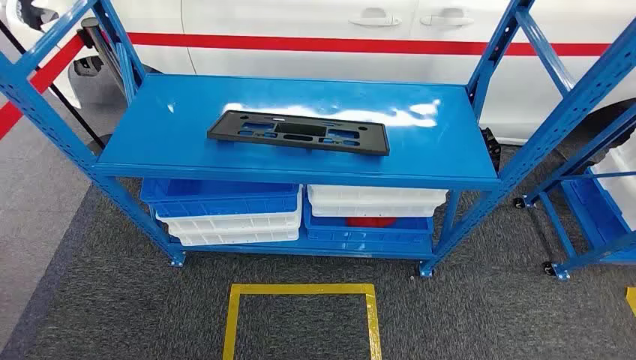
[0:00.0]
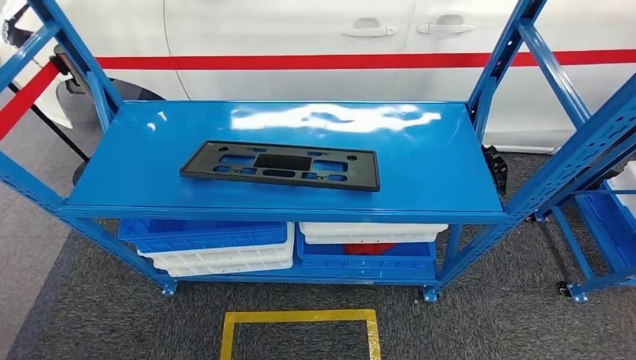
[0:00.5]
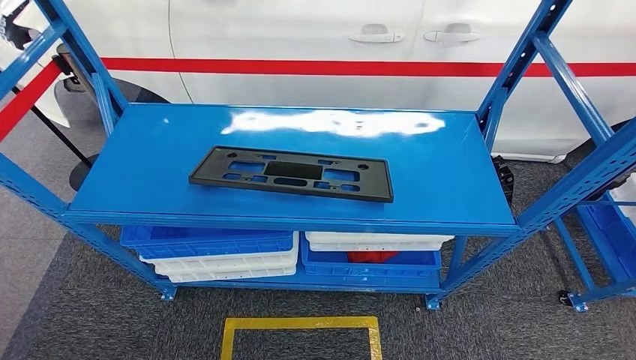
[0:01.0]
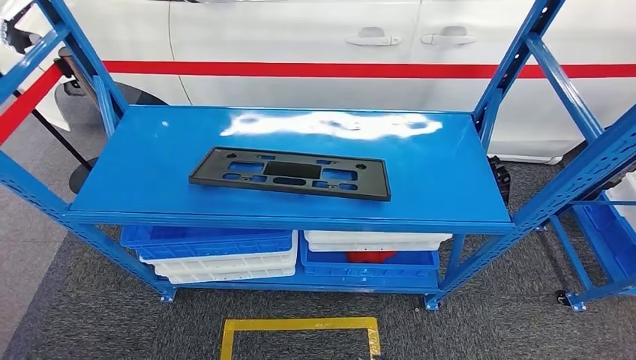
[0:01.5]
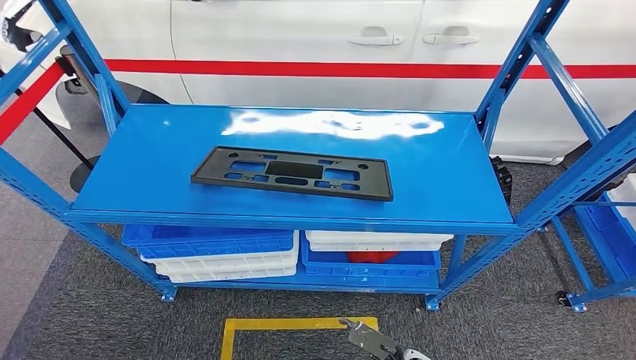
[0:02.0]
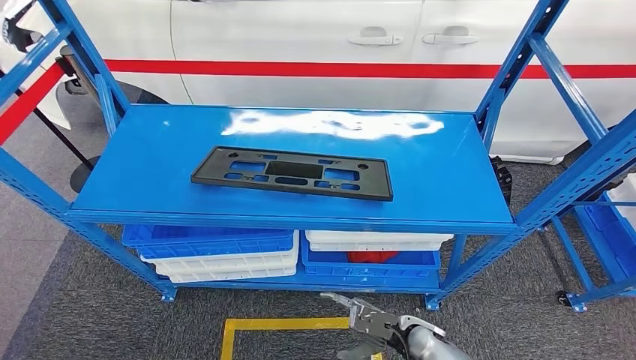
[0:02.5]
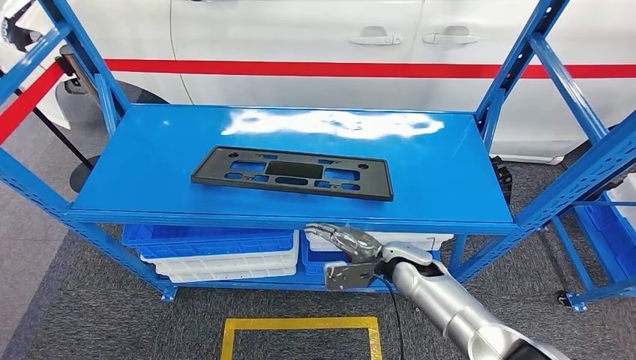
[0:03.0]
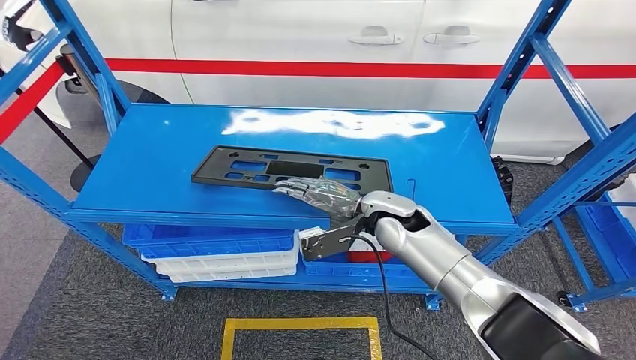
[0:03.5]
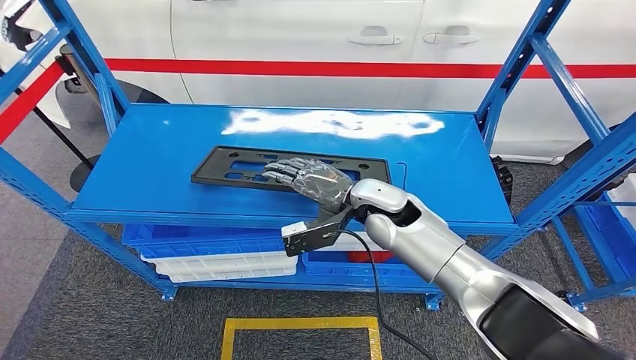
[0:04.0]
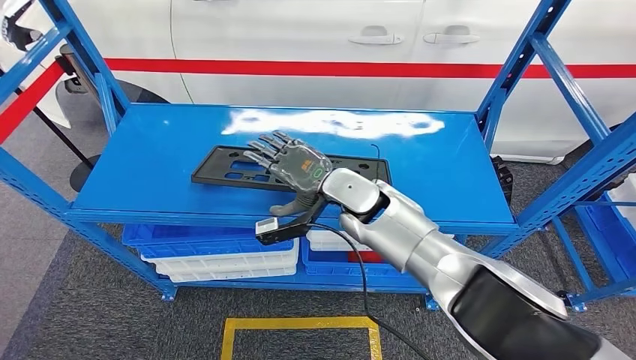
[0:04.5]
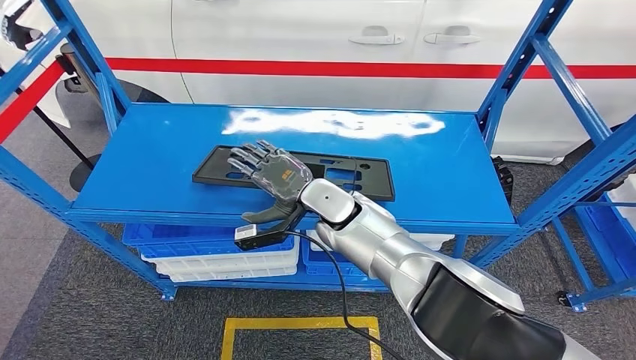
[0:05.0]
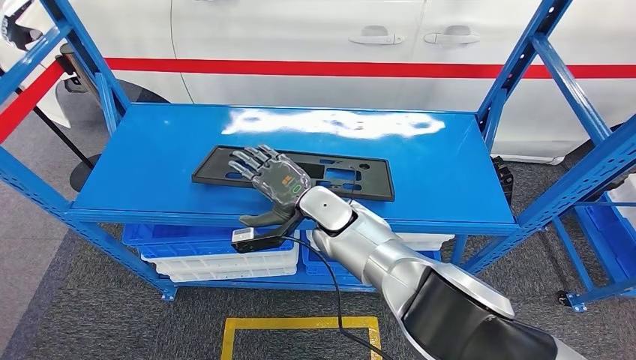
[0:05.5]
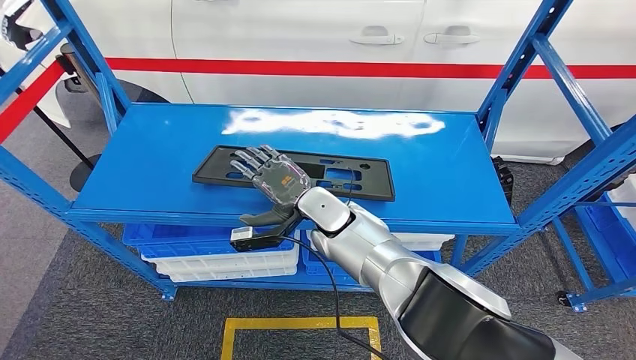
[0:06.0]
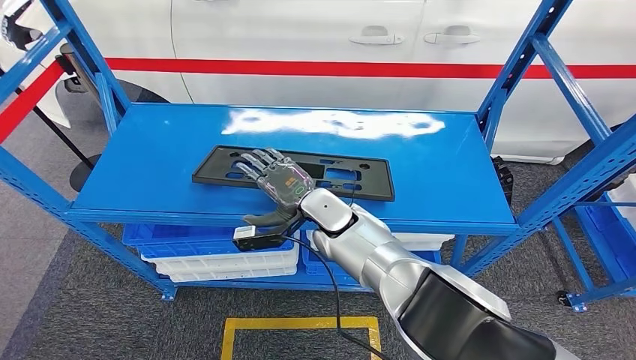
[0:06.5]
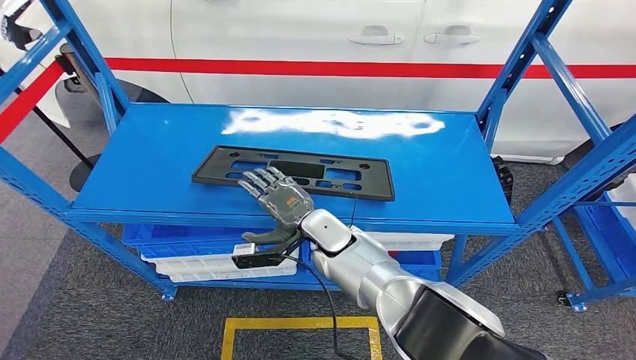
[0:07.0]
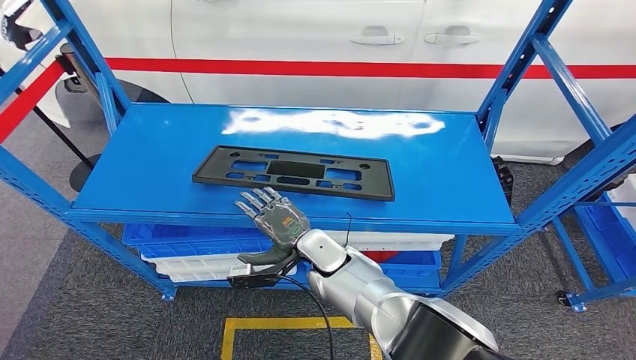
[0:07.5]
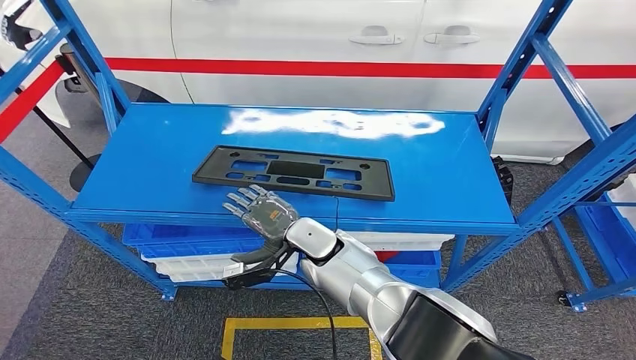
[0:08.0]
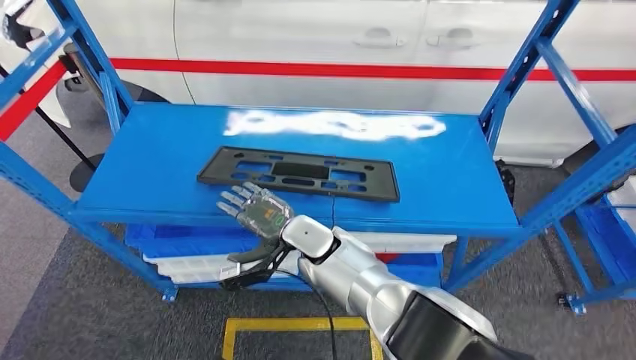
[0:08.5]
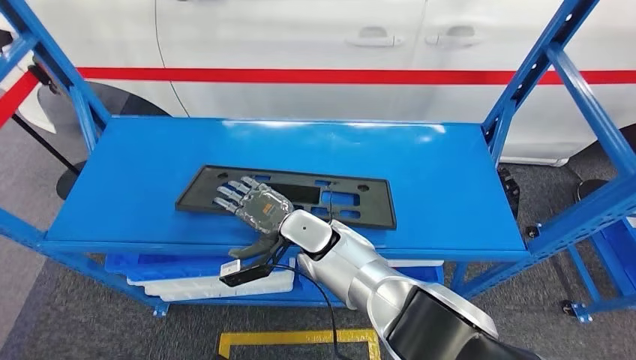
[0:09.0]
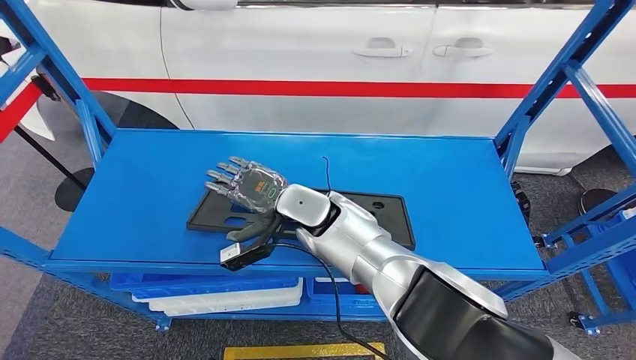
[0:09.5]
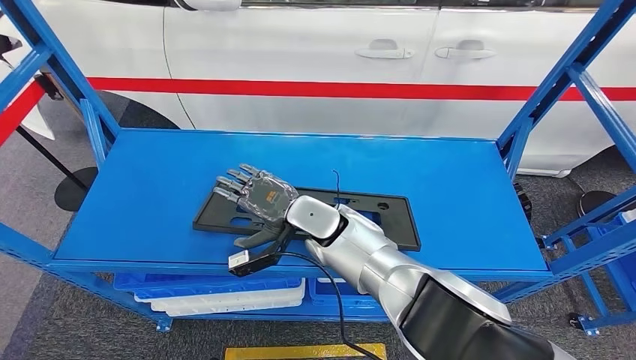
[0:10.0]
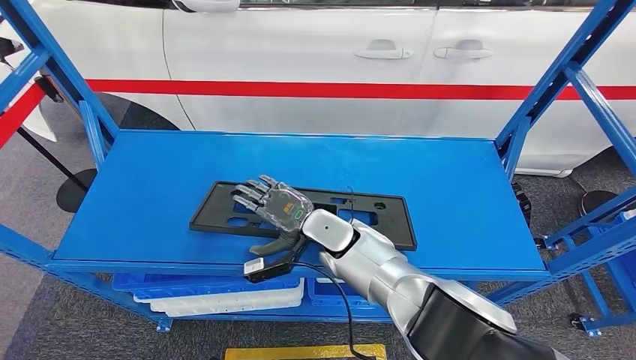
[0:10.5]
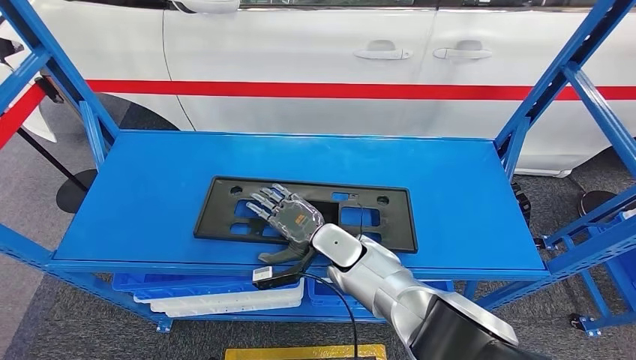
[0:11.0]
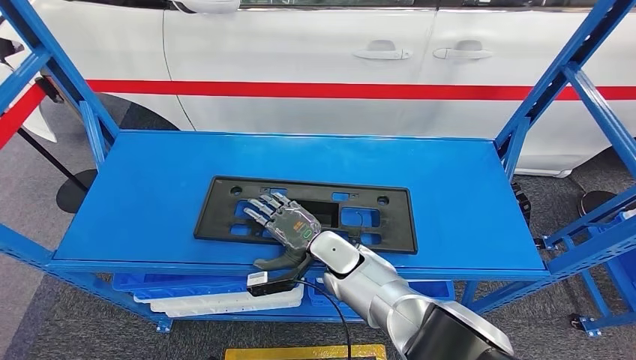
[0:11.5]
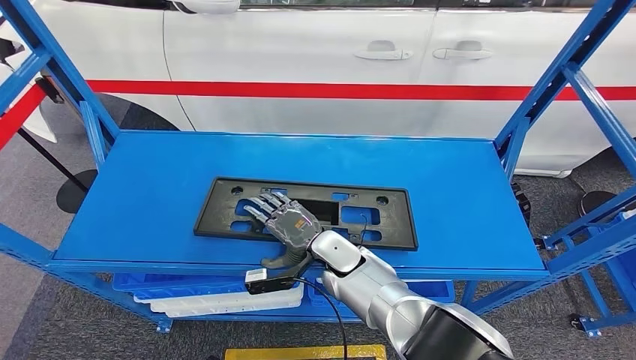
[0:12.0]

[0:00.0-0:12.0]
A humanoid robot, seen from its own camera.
0:02.0 to 0:04.0: The right hand is displaced upward and forward by roughly 35 cm.
0:04.0 to 0:06.0: The right hand goes roughly 10 cm to the left.
0:06.0 to 0:08.0: The right hand shifts by about 5 cm.
0:10.0 to 0:12.0: The right hand shifts about 10 cm downward.

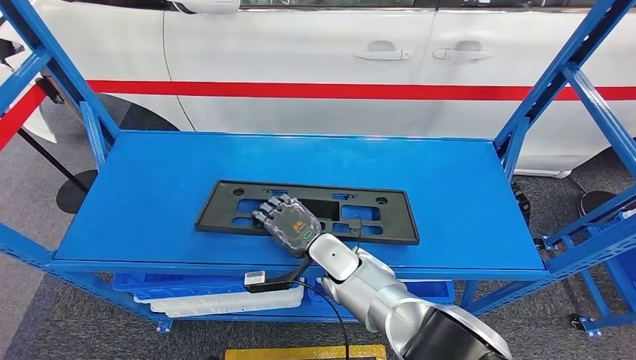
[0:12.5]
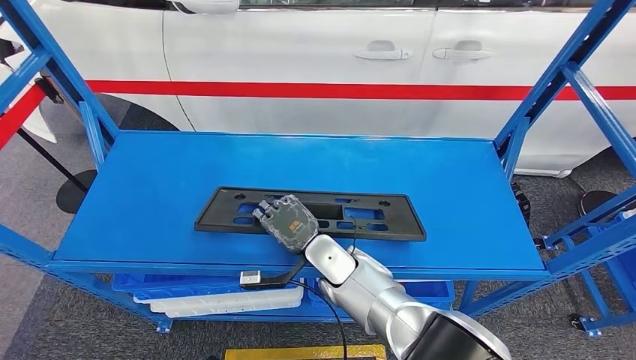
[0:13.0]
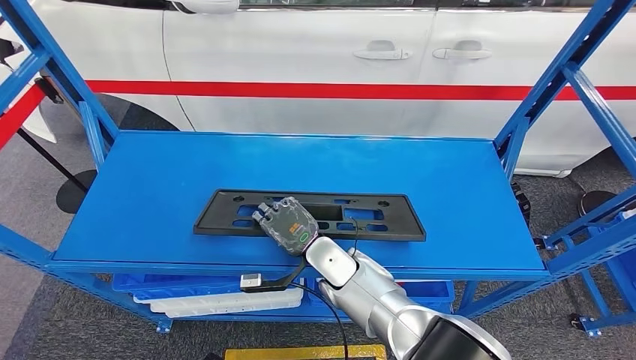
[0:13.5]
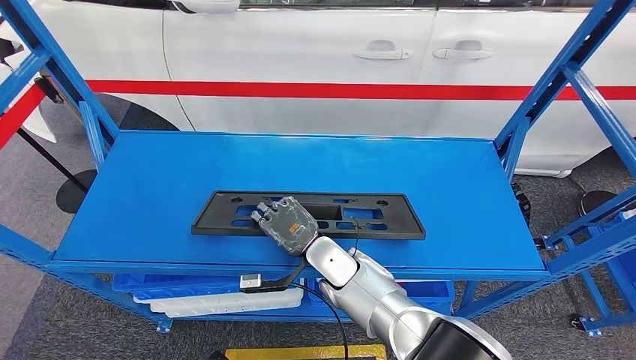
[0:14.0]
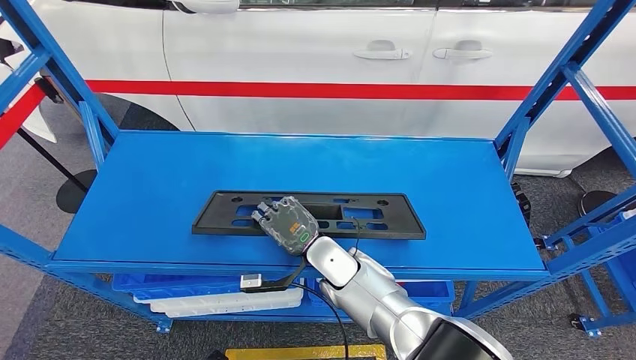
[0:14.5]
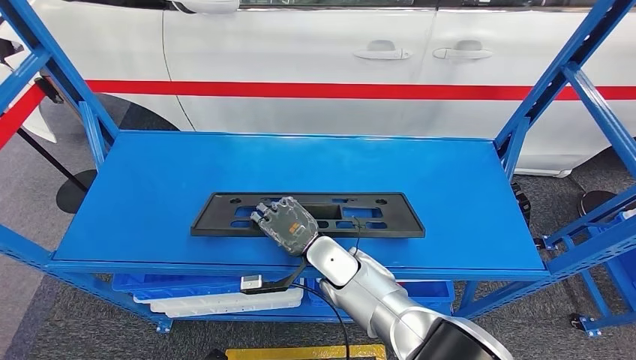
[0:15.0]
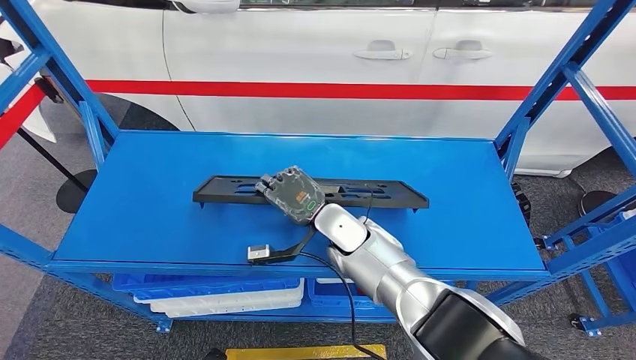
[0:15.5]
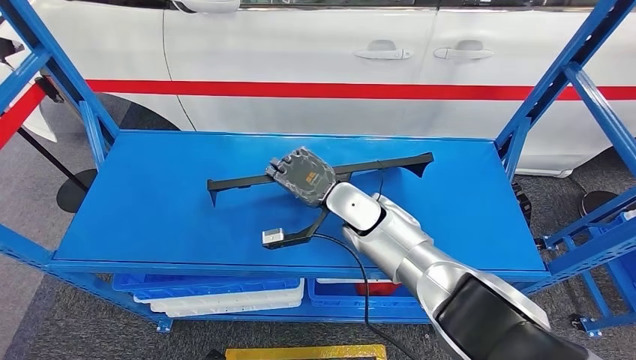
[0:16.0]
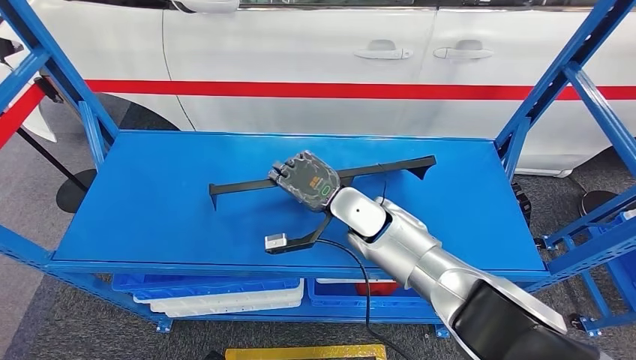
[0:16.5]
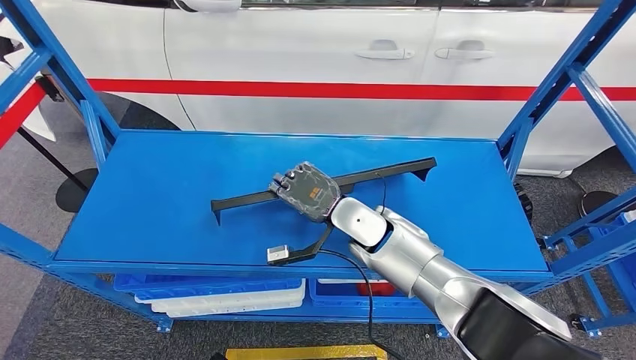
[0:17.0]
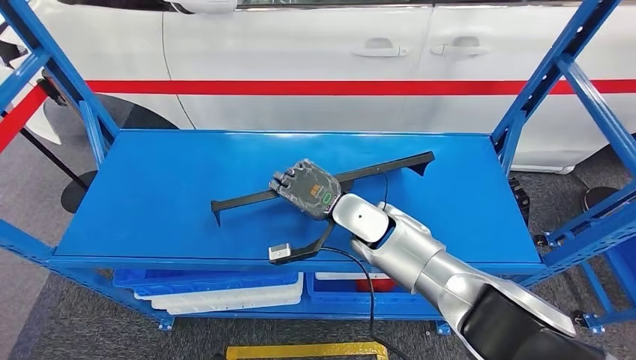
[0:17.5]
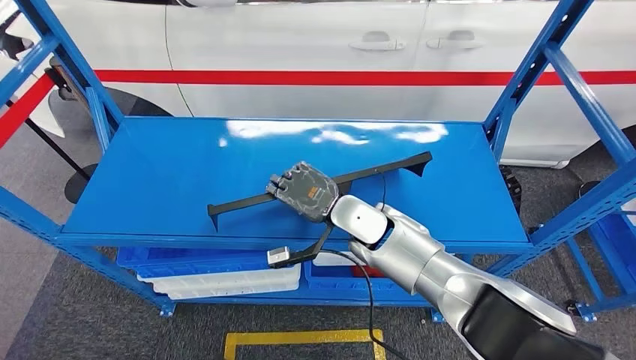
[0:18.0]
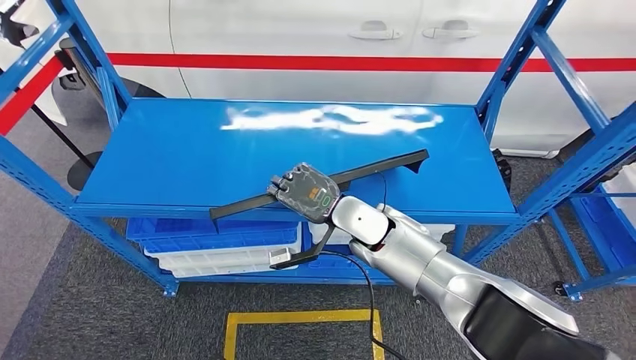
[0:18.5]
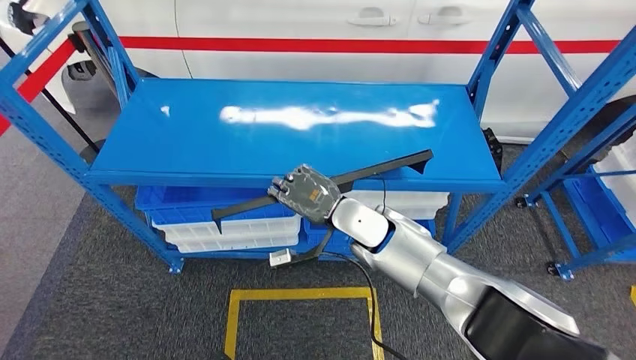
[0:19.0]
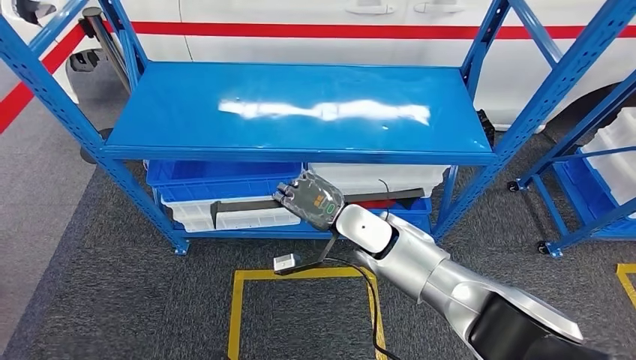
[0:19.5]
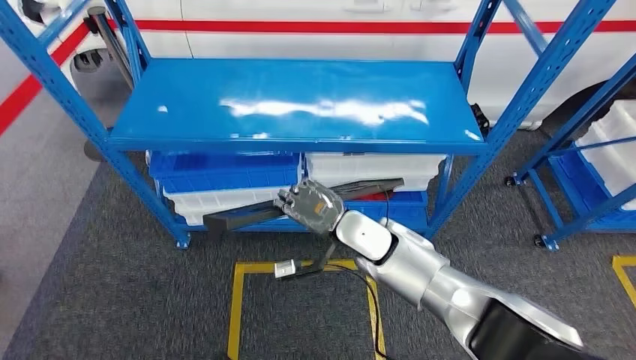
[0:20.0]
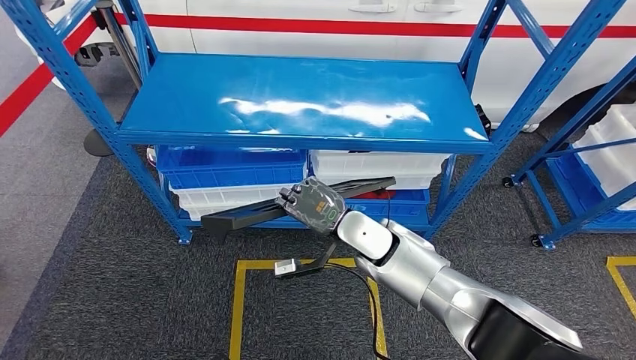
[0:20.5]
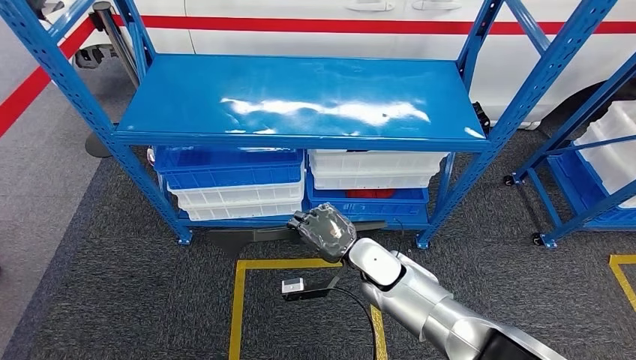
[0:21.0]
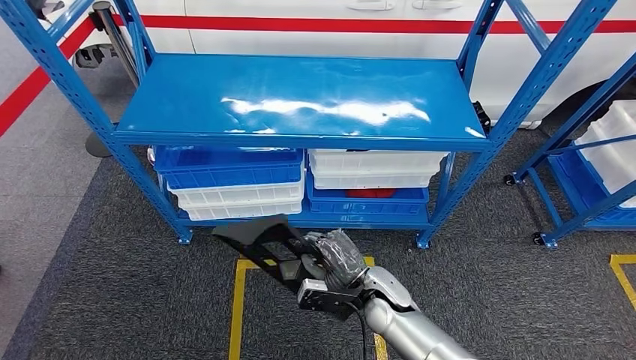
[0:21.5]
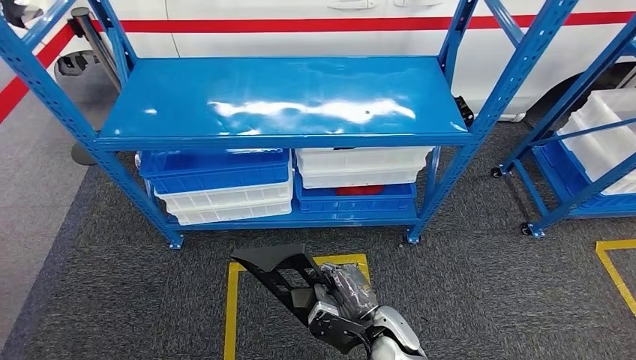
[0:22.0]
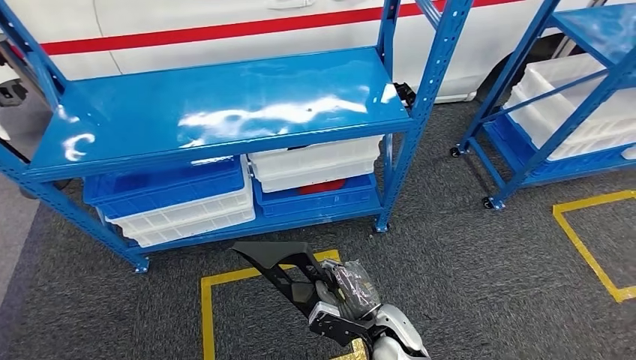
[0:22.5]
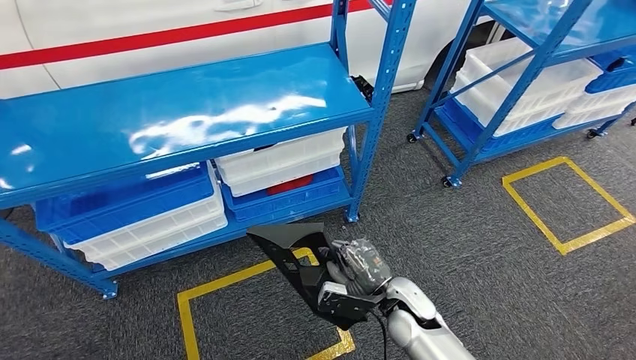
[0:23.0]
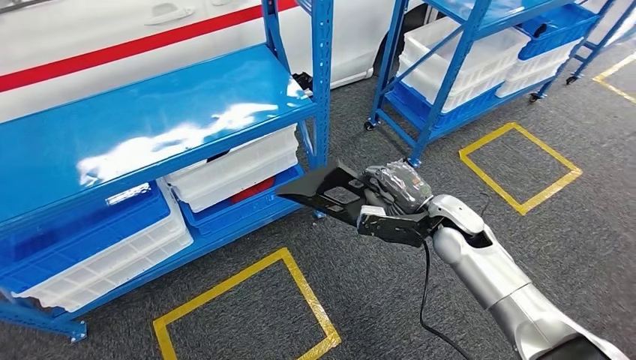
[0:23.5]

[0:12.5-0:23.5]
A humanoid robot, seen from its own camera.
Step, 0:12.5 to 0:16.0: Pick up the large material from the shelf.
0:12.5 to 0:14.5: The hands move only a little.
0:14.5 to 0:16.0: The right hand shifts approximately 10 cm upward and forward.
